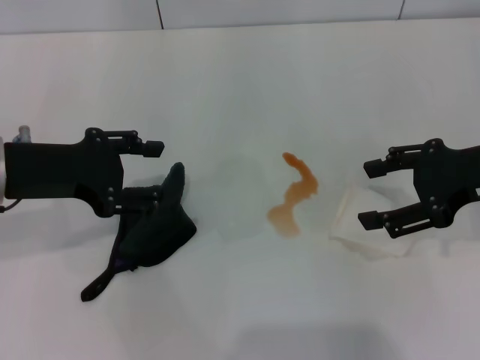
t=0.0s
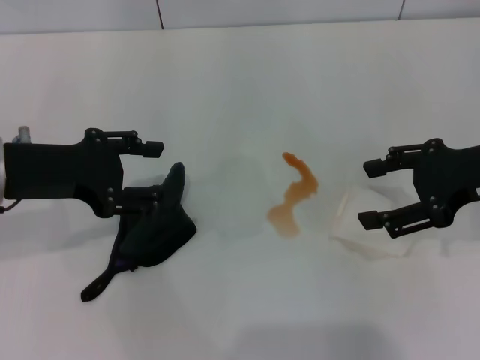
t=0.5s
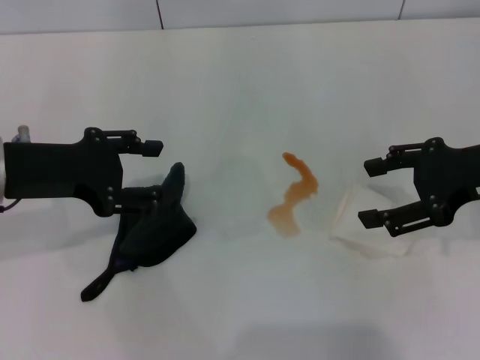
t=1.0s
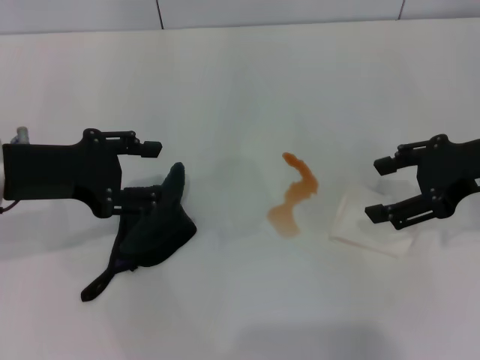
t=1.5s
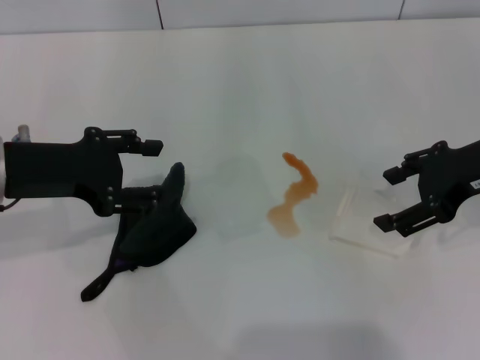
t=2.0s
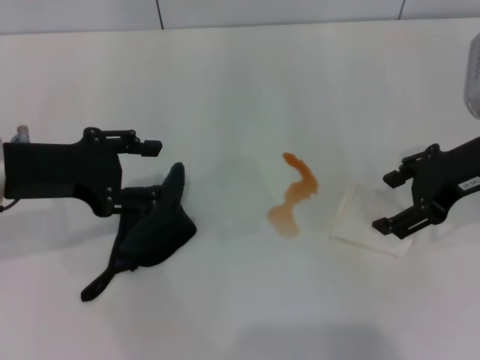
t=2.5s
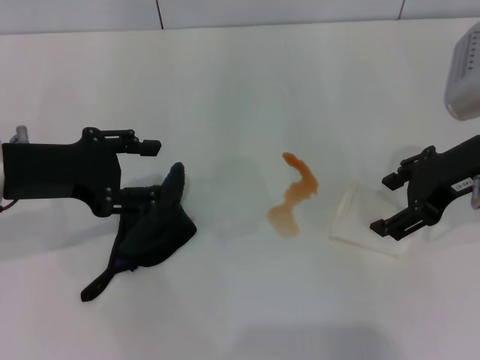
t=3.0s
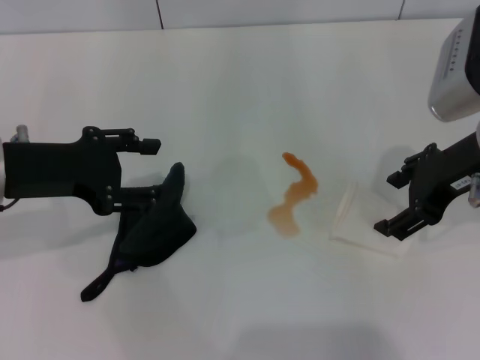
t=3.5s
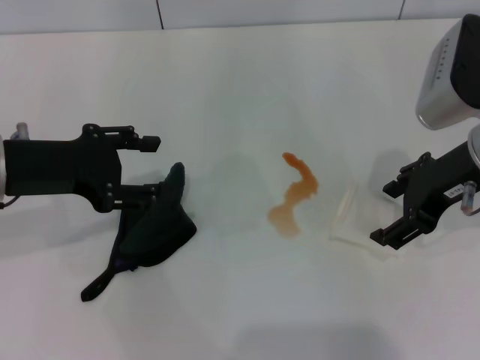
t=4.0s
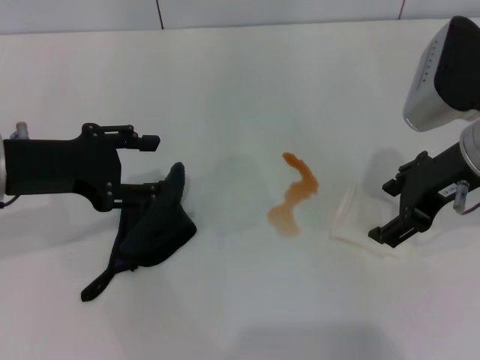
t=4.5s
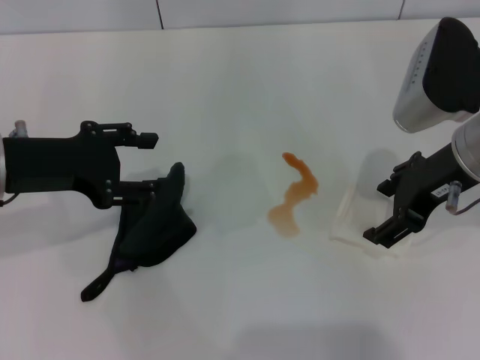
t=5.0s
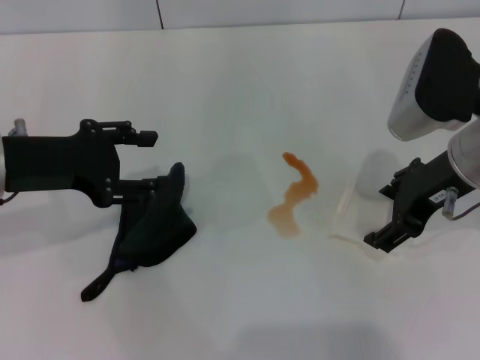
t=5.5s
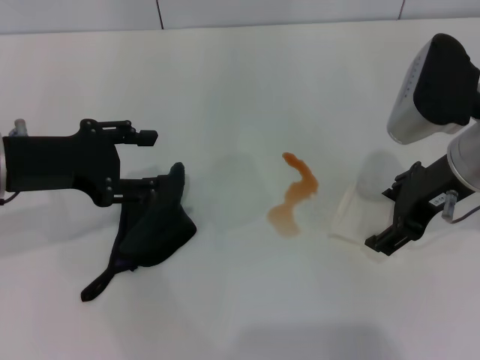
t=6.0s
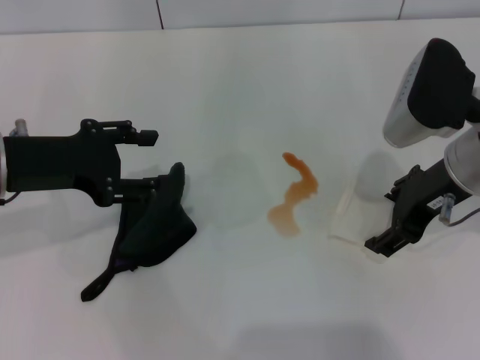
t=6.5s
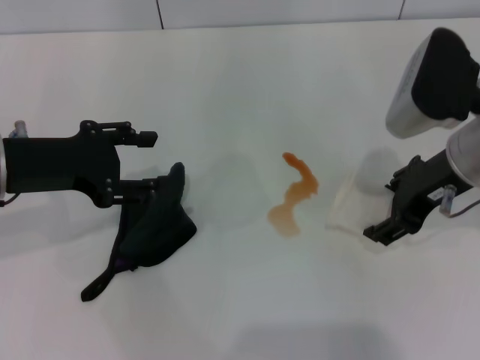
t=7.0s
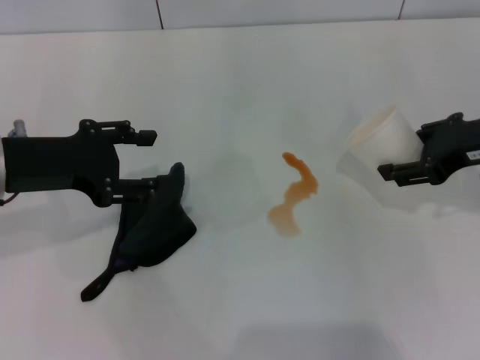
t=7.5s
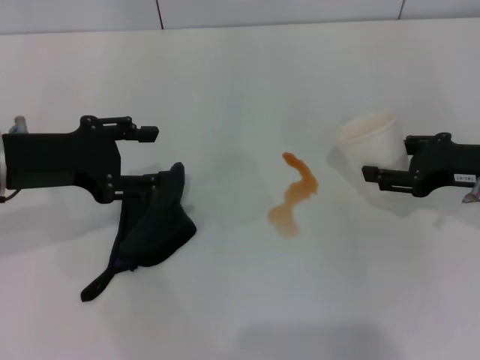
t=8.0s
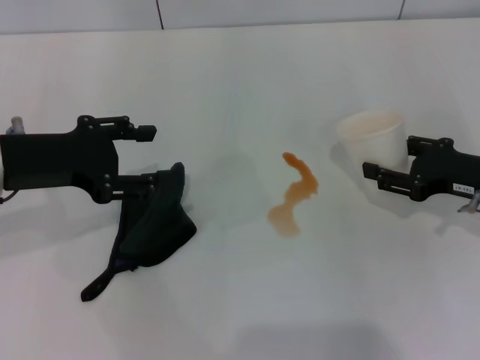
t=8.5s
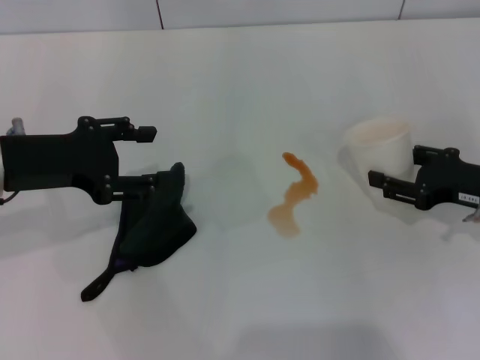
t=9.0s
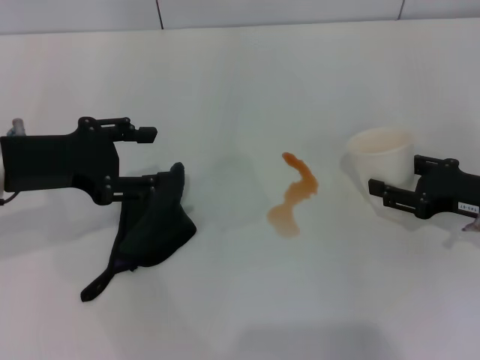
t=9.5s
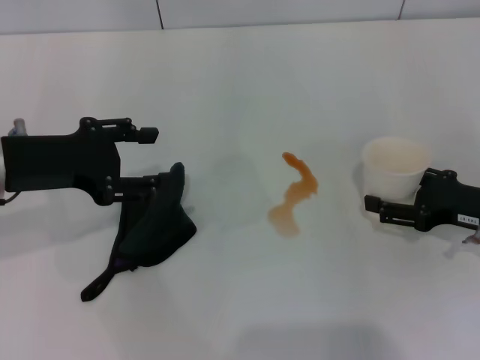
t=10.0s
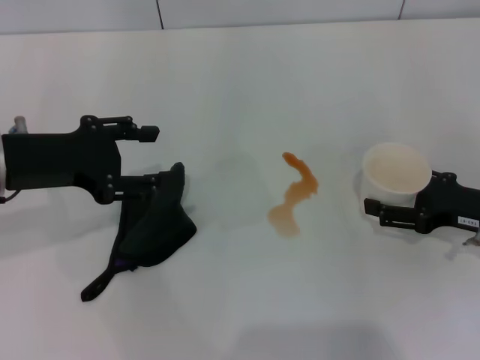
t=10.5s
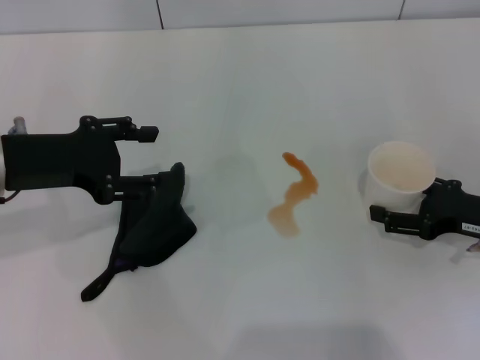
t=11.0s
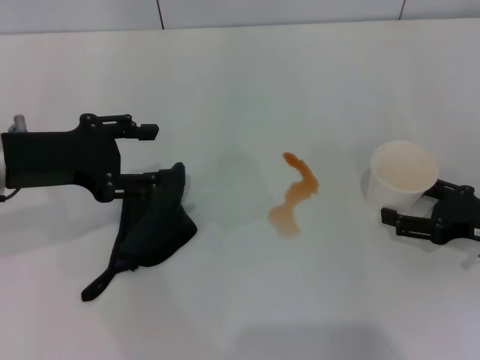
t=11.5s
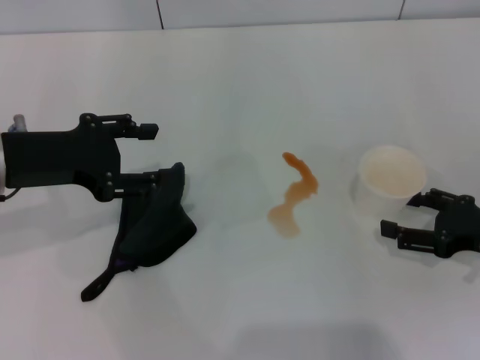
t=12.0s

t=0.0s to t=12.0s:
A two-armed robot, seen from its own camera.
Step, t=0.0s to t=6.5s: Grasp the paper cup with the right gripper.
Step, t=7.0s to t=11.5s: Stand the paper cup upright with the right gripper.
t=0.0s to t=2.0s: The grippers make only small movements.
t=2.0s to t=6.0s: The grippers stay close to where they were, moving slightly.
t=6.0s to t=8.0s: The right gripper goes roughly 10 cm to the right and downward, and closes up.
t=8.0s to t=10.0s: The right gripper heads downward, covering roughly 5 cm.
t=10.0s to t=12.0s: The right gripper opens its fingers.

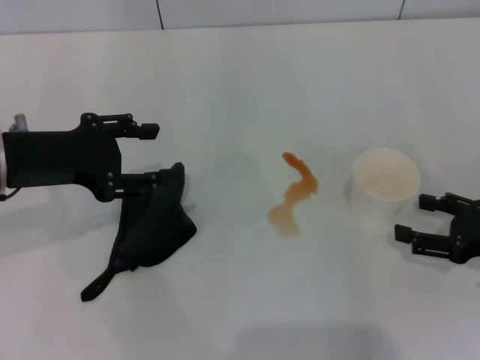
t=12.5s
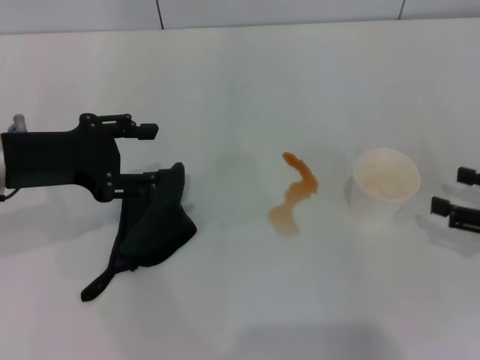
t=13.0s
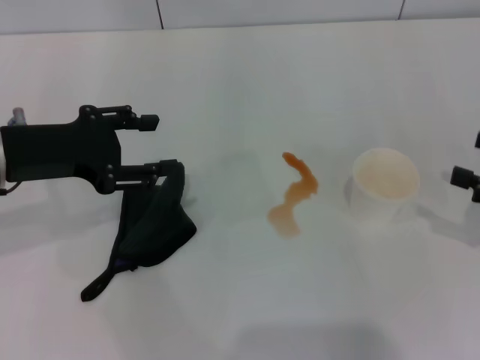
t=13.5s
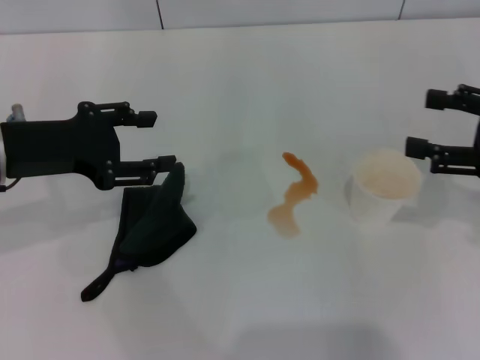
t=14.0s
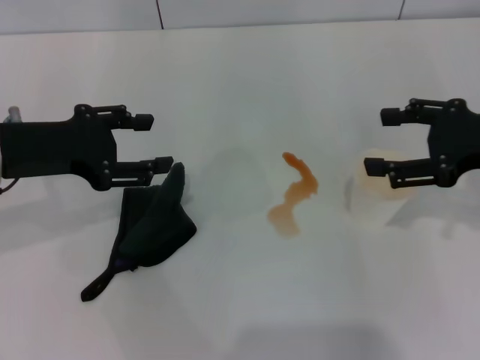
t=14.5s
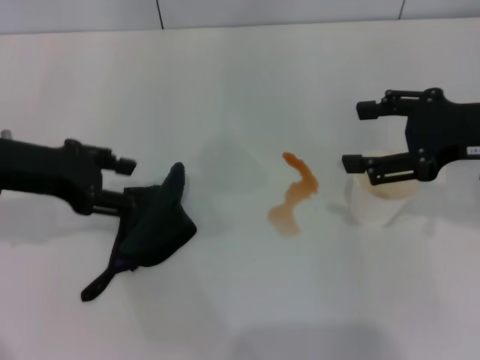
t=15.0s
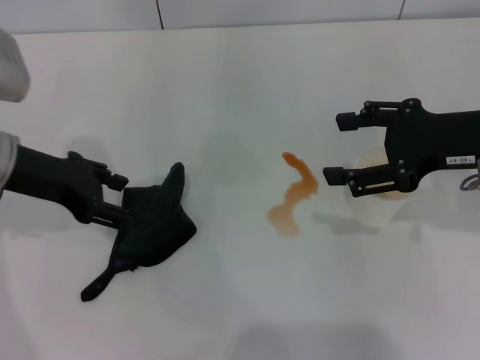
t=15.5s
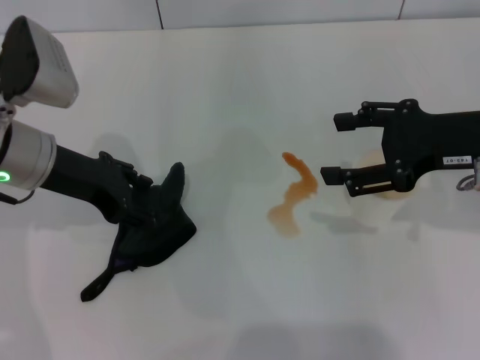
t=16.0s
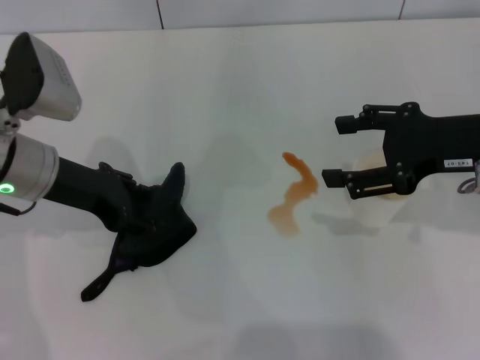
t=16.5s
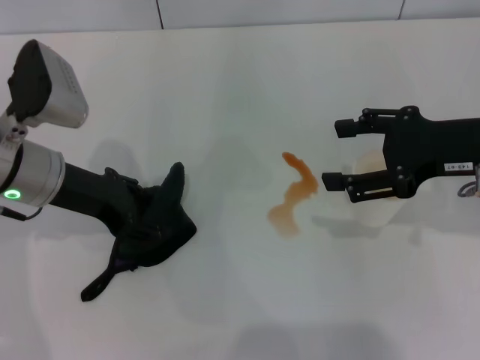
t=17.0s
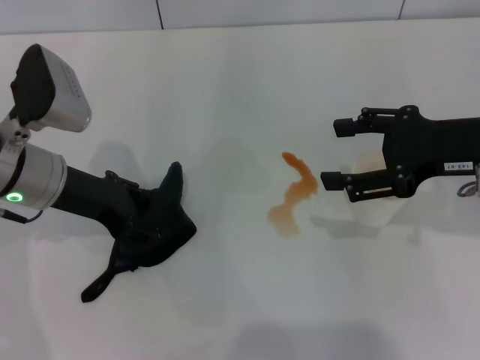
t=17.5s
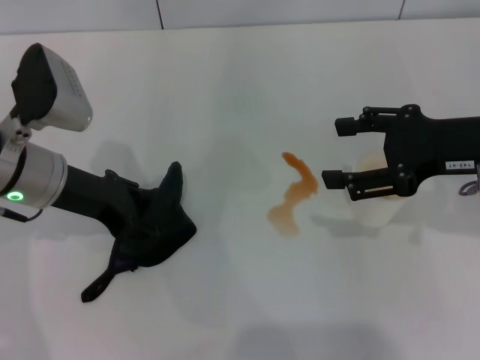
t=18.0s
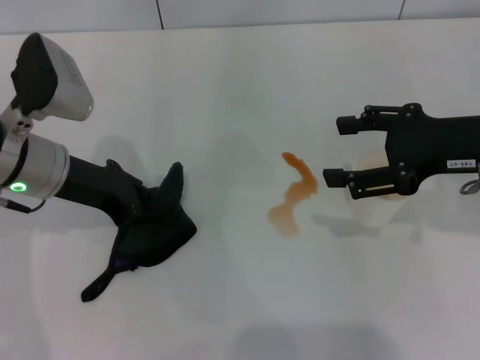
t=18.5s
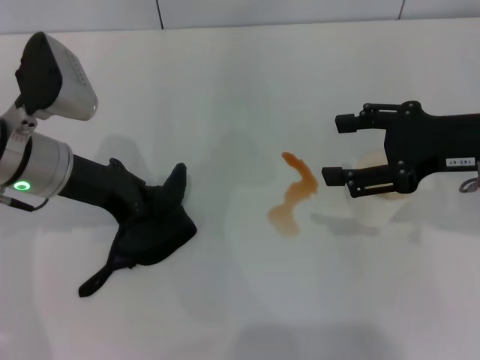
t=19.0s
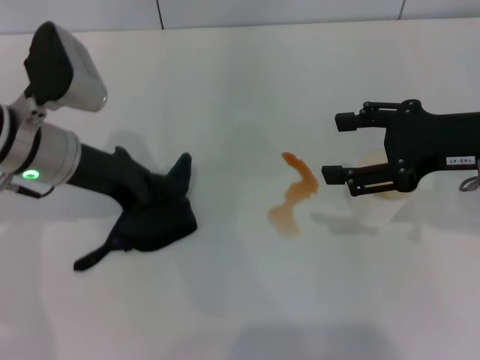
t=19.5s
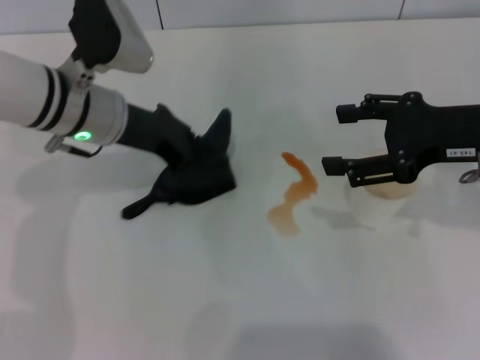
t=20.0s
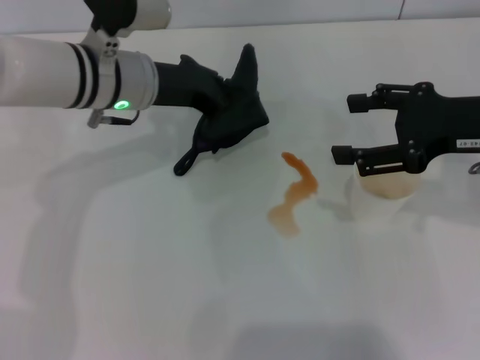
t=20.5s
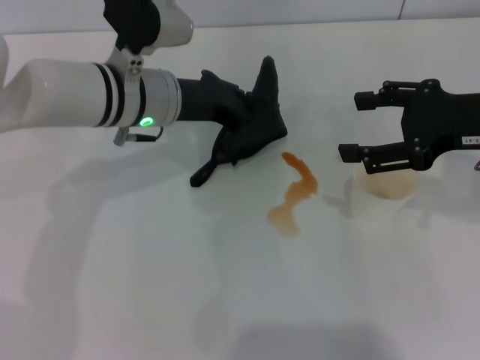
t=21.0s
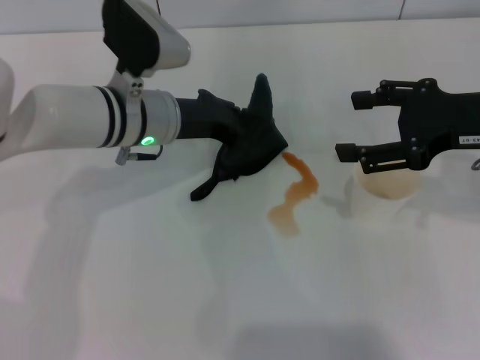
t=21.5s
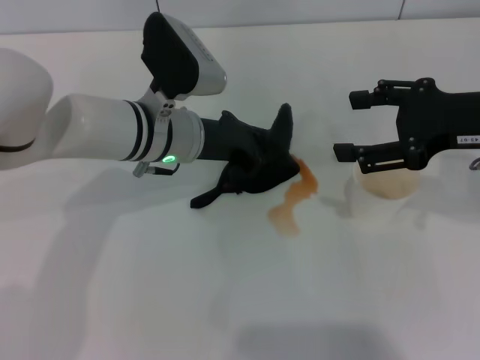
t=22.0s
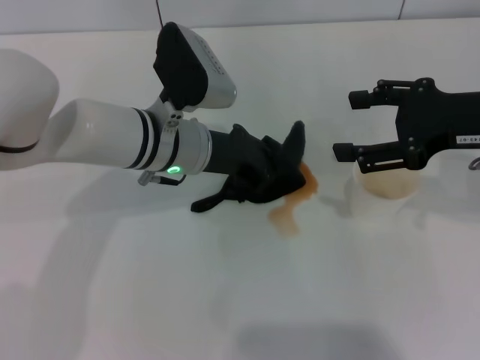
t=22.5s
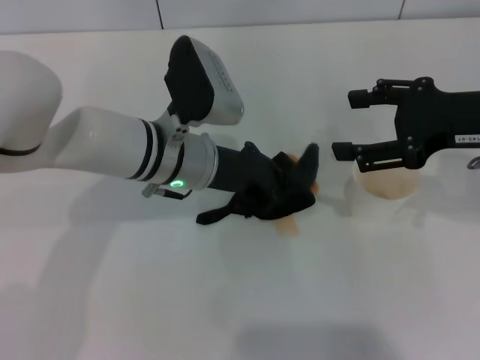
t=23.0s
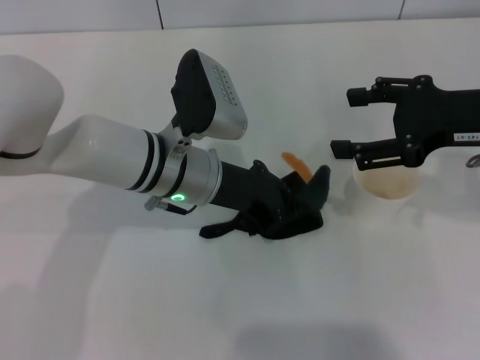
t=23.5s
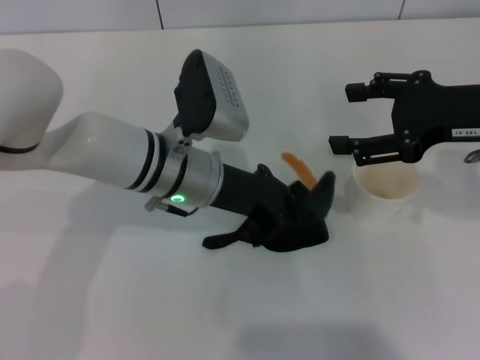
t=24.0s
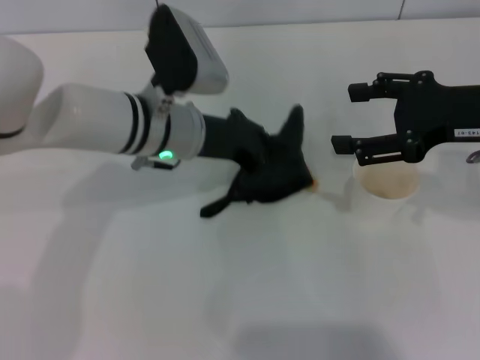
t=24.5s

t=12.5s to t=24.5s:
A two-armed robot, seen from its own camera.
Step, t=12.5s to t=18.5s: Grasp the rag with the left gripper.
t=12.5s to t=14.5s: The right gripper moves upward and forward, roughly 15 cm.
t=14.5s to t=16.5s: The left gripper changes place by some 5 cm.
t=16.5s to t=18.5s: The left gripper closes its fingers.
t=18.5s to t=20.5s: The left gripper heads to the right and forward, covering some 10 cm, and closes its fingers.
t=20.5s to t=22.5s: The left gripper shifts by about 5 cm.
t=22.5s to t=24.5s: The grippers move only a little.

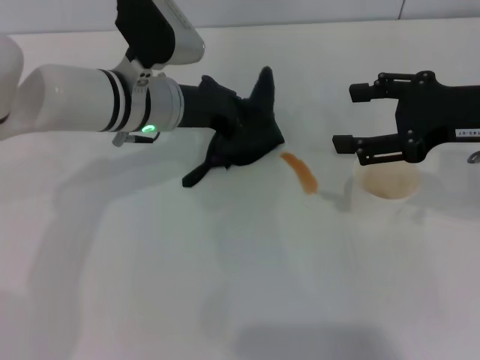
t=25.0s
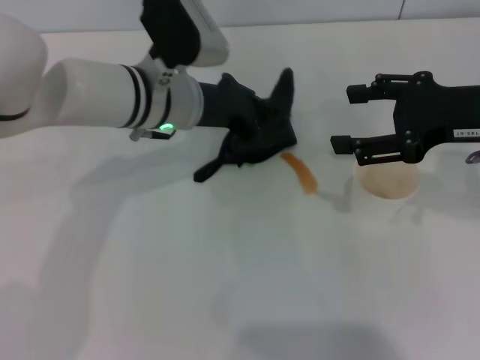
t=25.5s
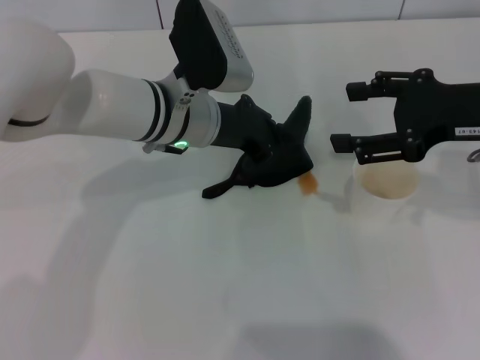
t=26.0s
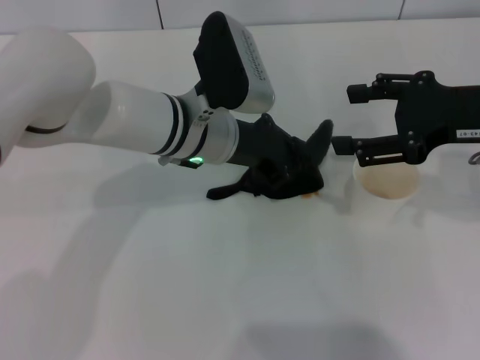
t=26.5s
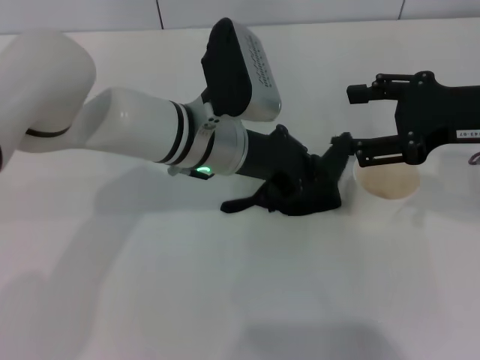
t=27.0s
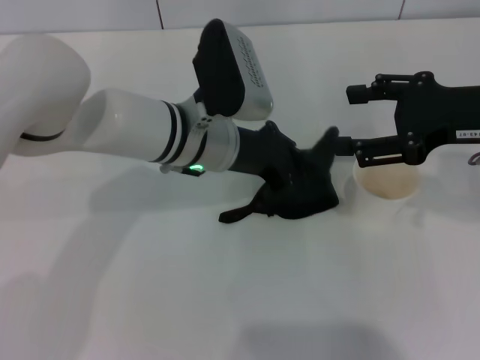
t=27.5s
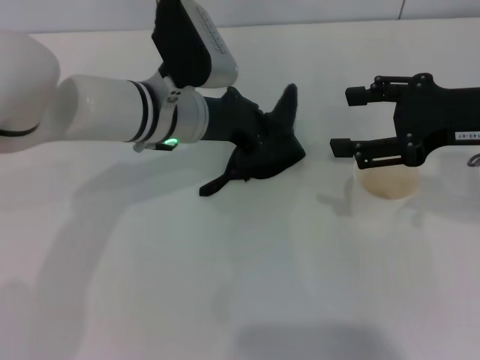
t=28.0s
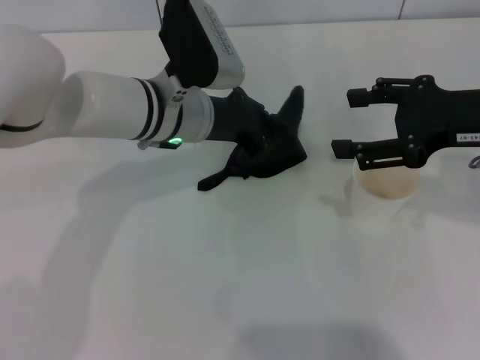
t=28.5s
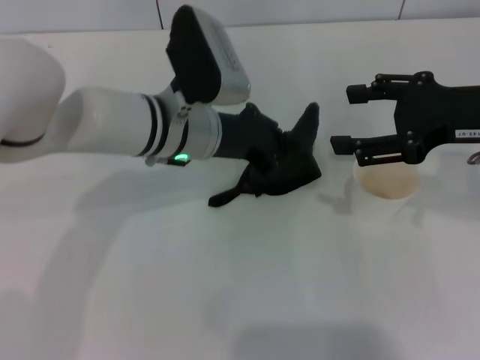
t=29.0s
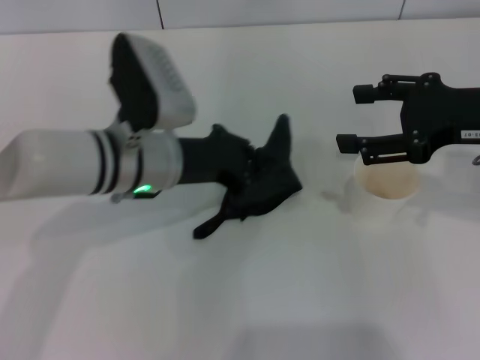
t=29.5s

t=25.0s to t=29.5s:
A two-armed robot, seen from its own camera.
t=25.0s to t=27.0s: The left gripper heads to the right, covering about 5 cm.
t=27.0s to t=29.5s: The left gripper is displaced to the left by some 5 cm.
